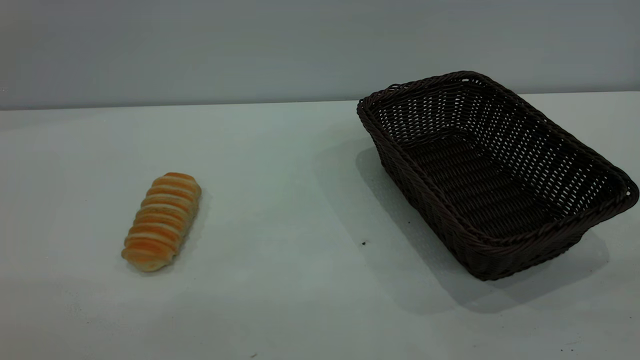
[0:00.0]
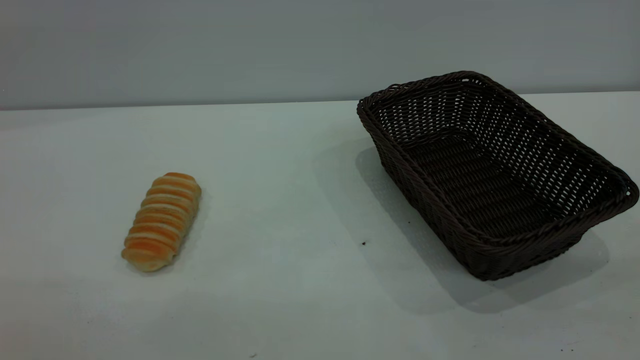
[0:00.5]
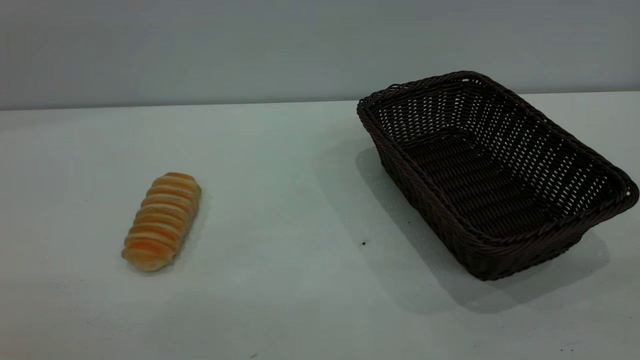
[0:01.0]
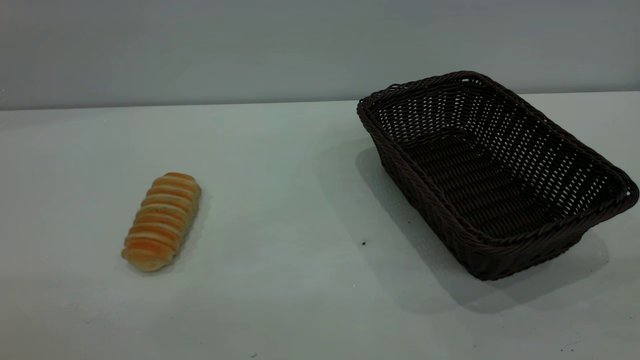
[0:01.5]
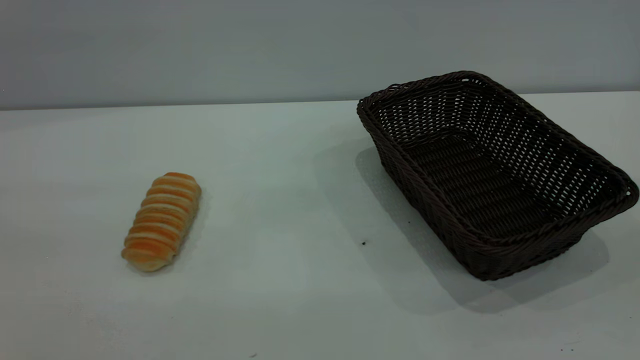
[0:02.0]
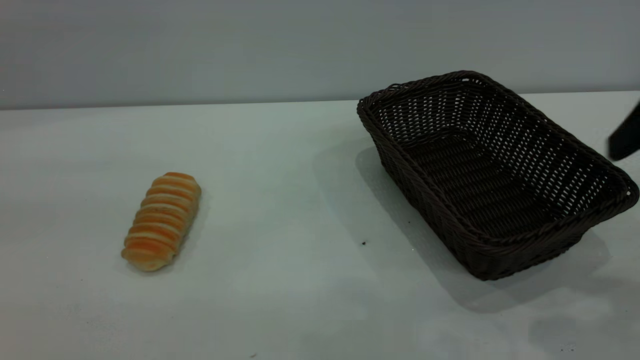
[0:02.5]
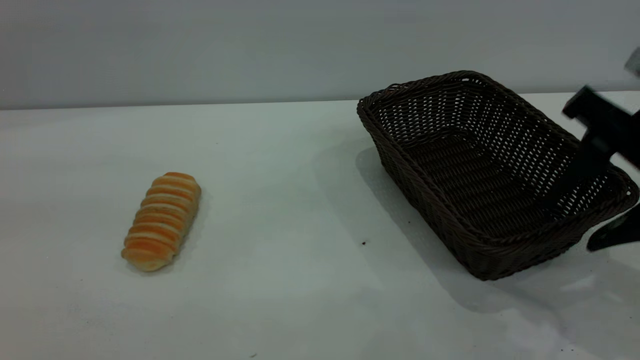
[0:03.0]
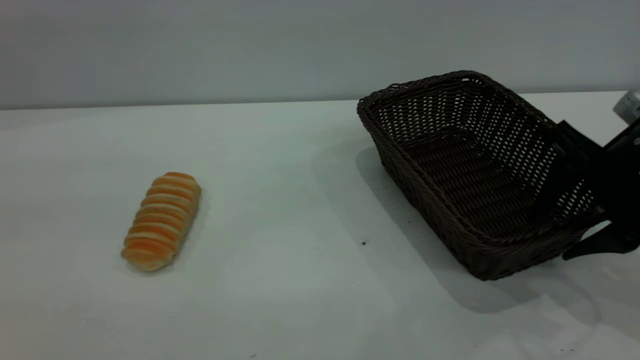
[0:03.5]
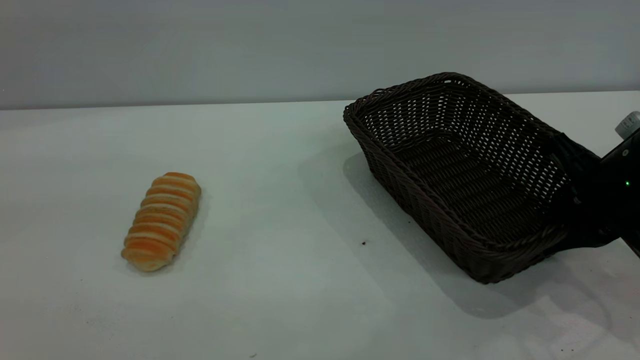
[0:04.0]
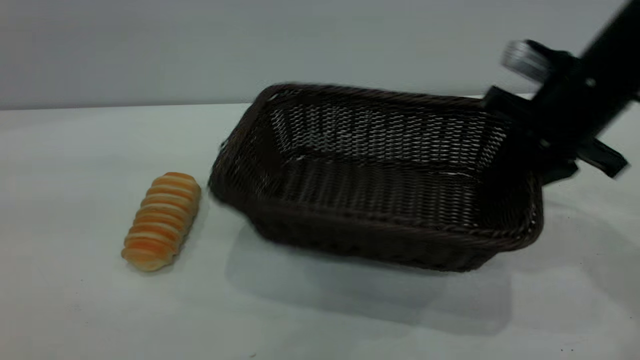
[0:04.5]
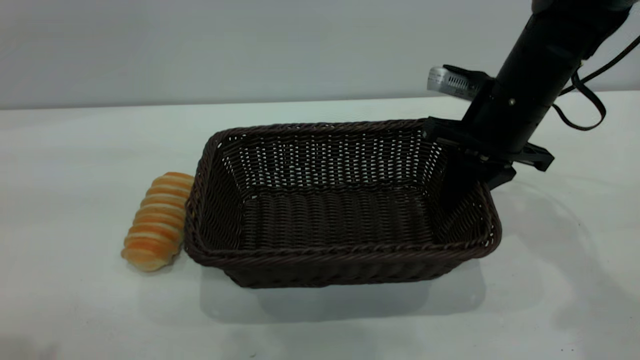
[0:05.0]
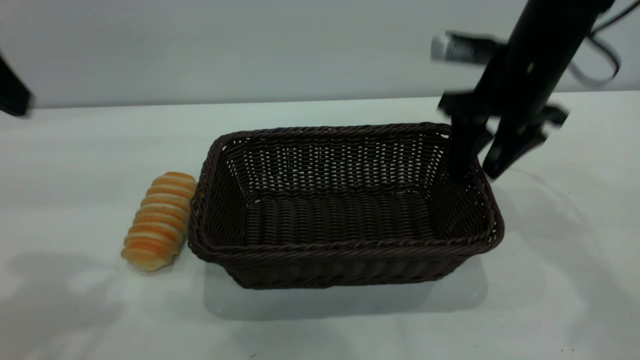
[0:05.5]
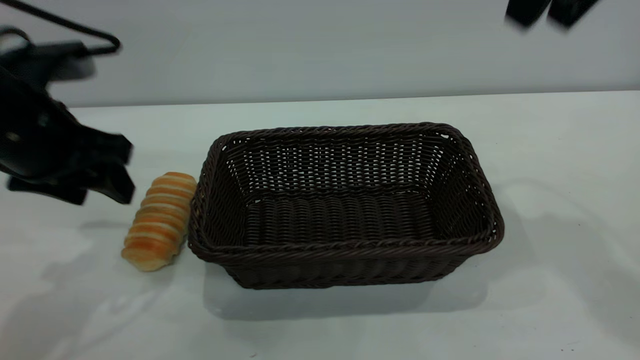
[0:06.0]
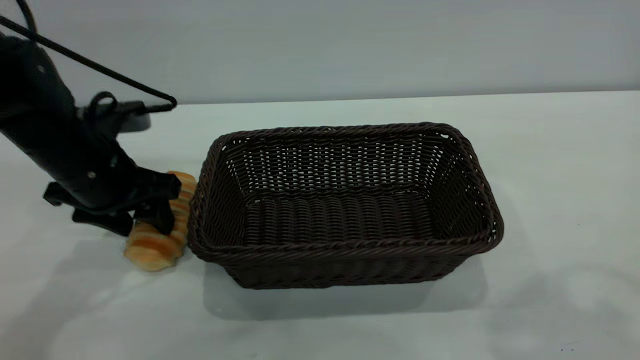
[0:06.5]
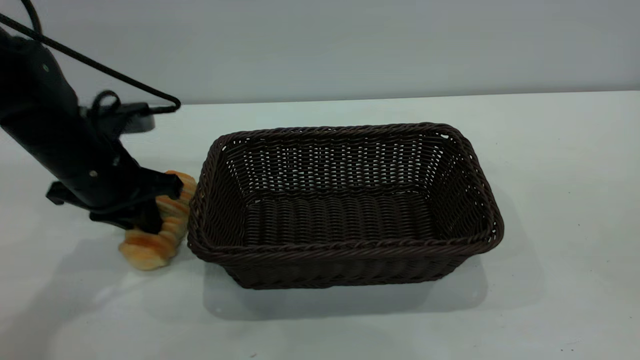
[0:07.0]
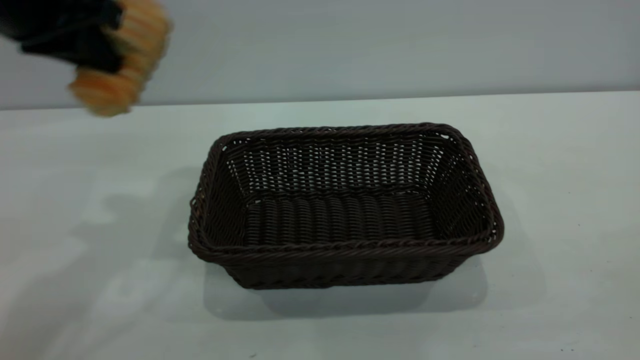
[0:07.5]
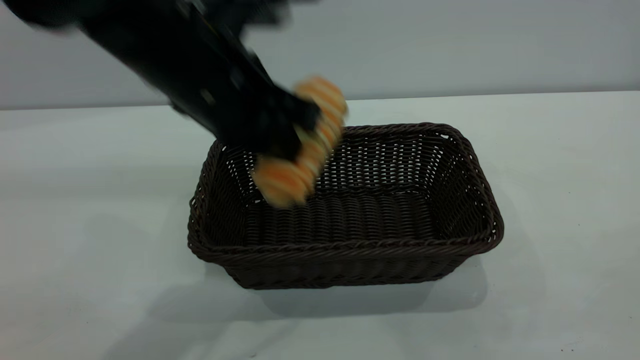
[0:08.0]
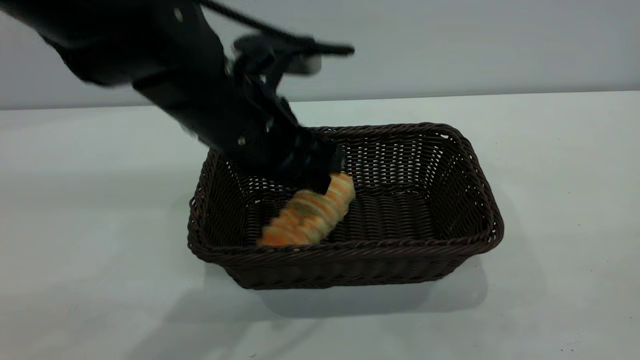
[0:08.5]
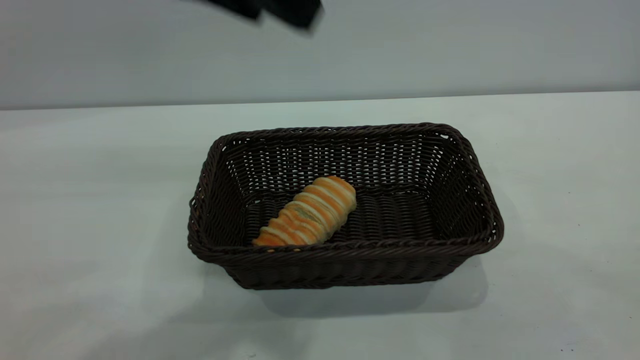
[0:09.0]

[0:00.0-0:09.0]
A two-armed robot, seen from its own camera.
Task of the whole recording: One hand grasps the black basket and places it in the middle of the table, while the other hand picks up the long bread and puts it into the black basket.
Step, 0:00.0 to 0:05.5: Move the basket to the center of view.
Step, 0:07.5 to 0:08.5: place the bread into the basket.
0:02.0 to 0:04.5: The right gripper is displaced forward and downward by some 35 cm, and closes up.
0:04.5 to 0:07.0: The right gripper goes some 35 cm backward and upward, and opens, while the left gripper is displaced downward and forward by approximately 35 cm, and closes.
0:07.0 to 0:09.0: The right gripper moves backward and downward, roughly 10 cm. Meanwhile the left gripper moves up and down over approximately 25 cm, changing direction 2 times, and opens.

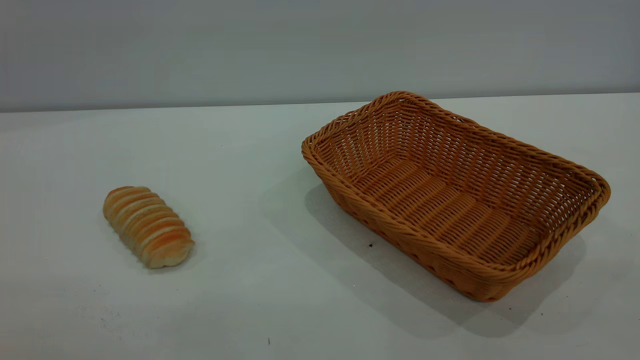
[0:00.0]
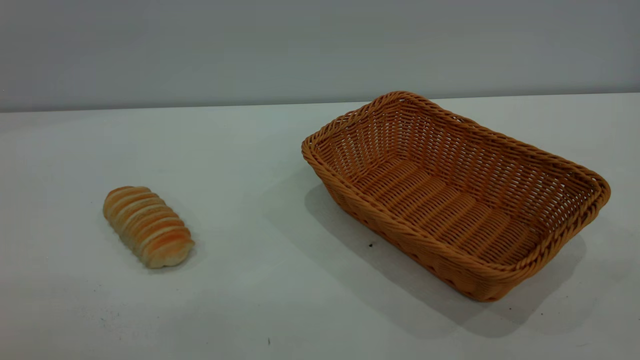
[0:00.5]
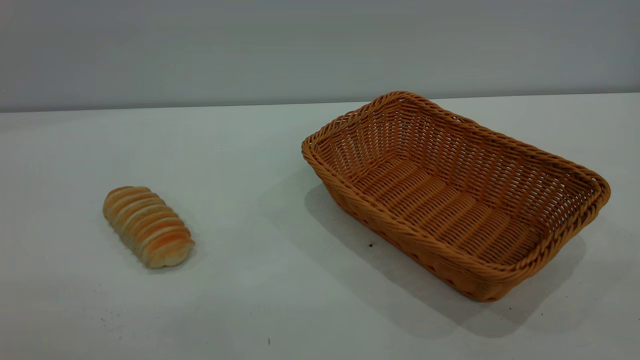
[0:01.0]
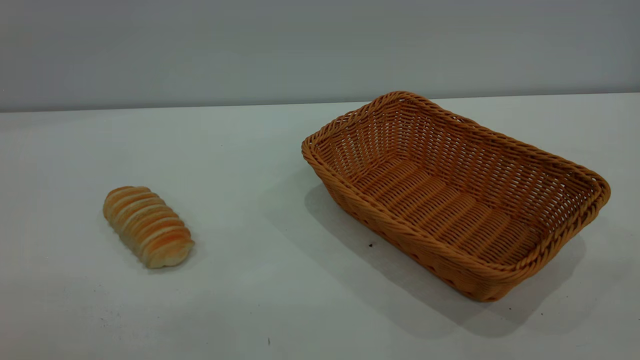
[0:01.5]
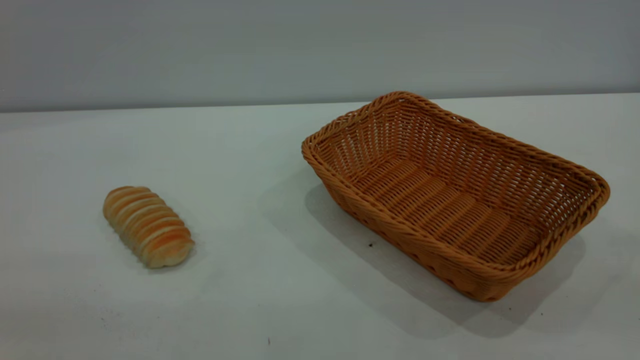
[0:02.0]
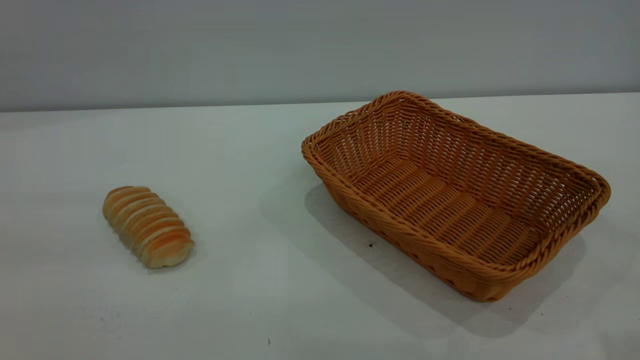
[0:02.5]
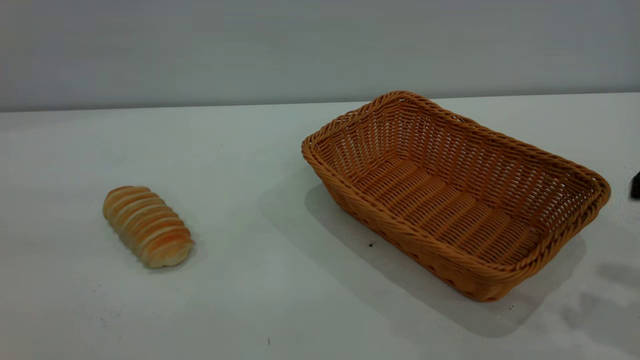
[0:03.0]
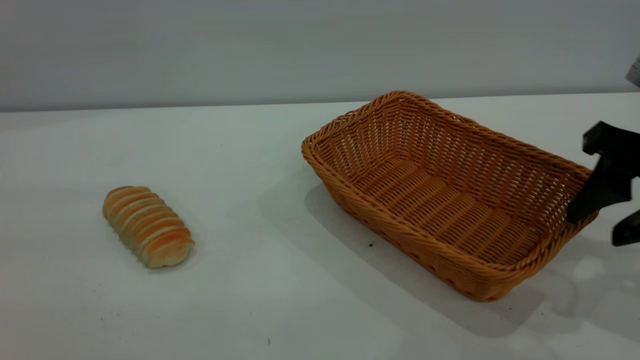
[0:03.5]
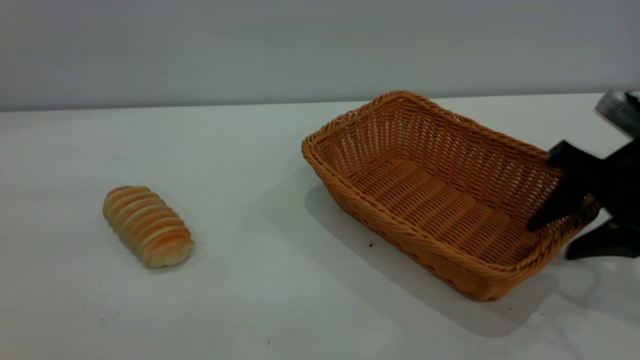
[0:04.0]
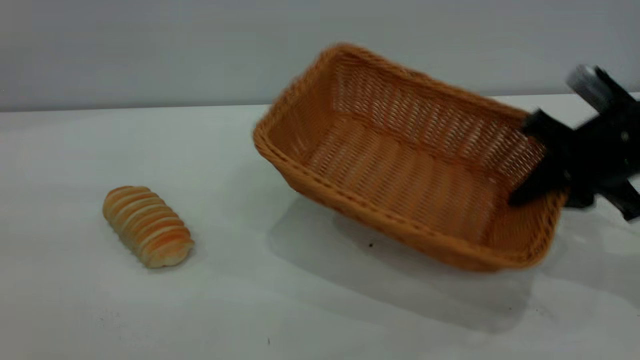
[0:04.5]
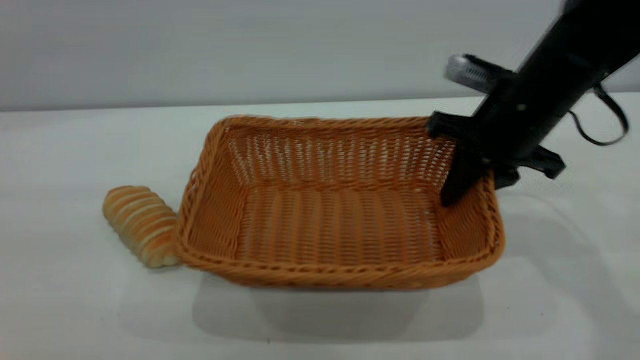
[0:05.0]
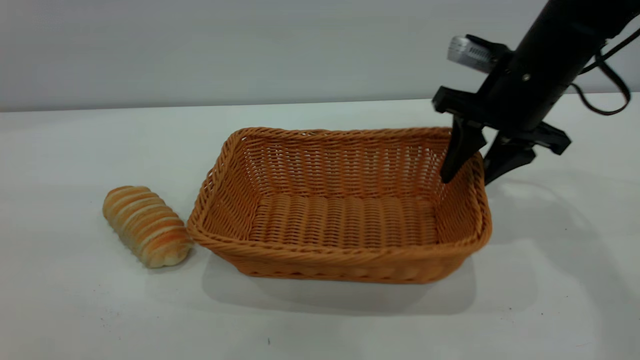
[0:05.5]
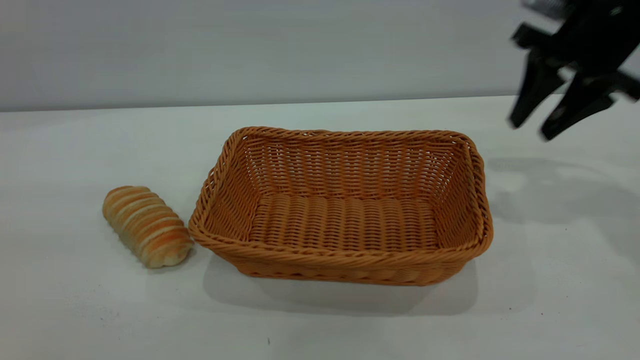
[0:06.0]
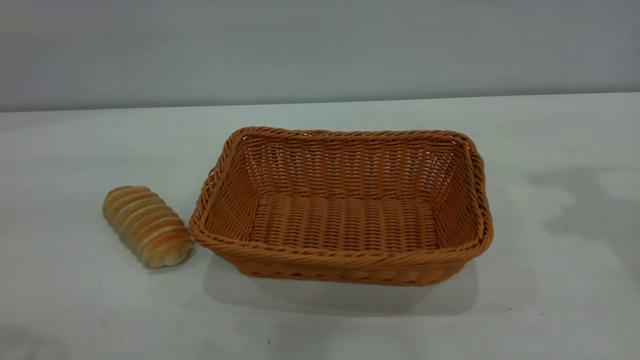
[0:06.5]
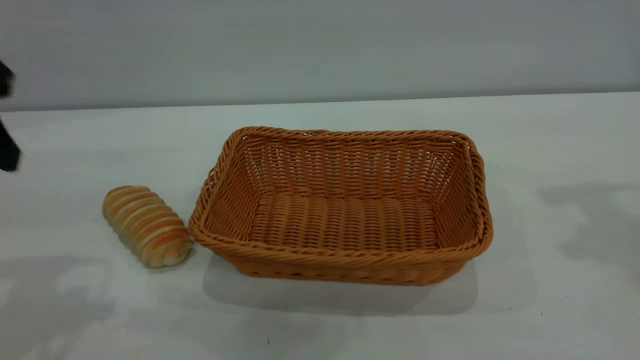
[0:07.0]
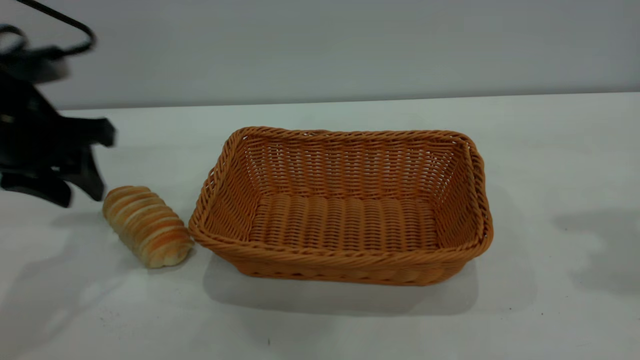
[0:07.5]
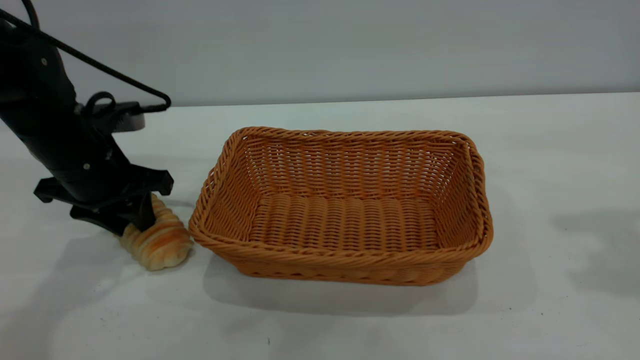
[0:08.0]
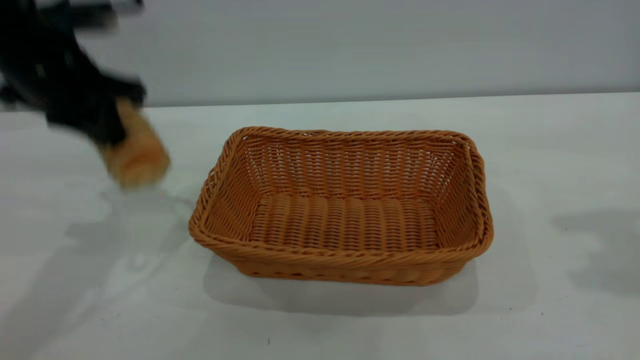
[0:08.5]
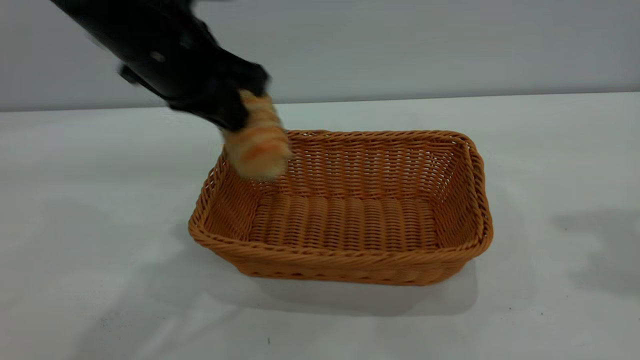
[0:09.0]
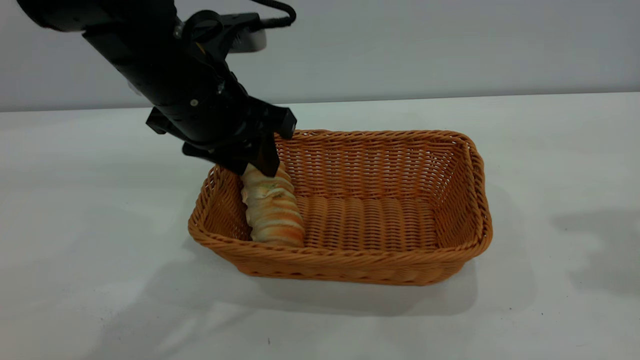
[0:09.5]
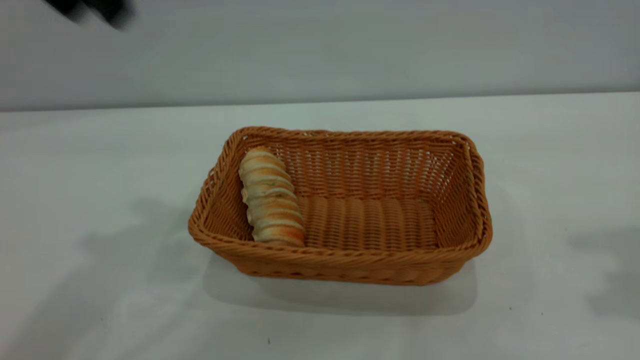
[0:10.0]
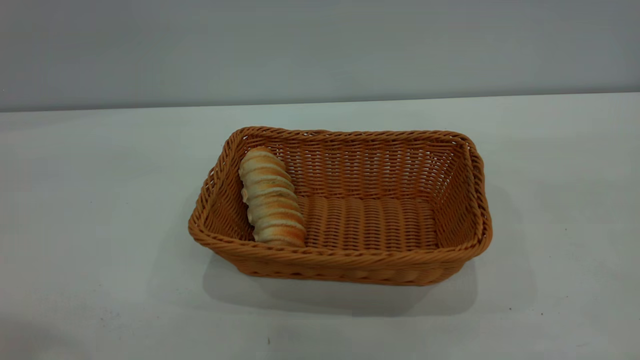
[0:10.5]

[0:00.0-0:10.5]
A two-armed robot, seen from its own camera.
Task of the whole recording: One hand grasps the yellow basket and places it in the middle of the table, while the other hand picks up the long bread and puts it into the yellow basket.
Step, 0:00.0 to 0:05.5: Move the basket to the center of view.
Step, 0:08.5 to 0:09.5: place the bread into the basket.
0:02.0 to 0:04.0: The right gripper goes some 35 cm forward and downward.
0:04.0 to 0:06.5: The left gripper heads forward, covering roughly 10 cm, while the right gripper heads upward, covering roughly 20 cm, and closes and opens again.
0:06.5 to 0:08.5: The left gripper shifts about 20 cm forward and downward, and closes its fingers. The right gripper moves backward and upward, roughly 10 cm.
0:08.5 to 0:10.5: The left gripper heads upward and backward, covering about 30 cm, and opens its fingers, while the right gripper shifts approximately 15 cm backward.
